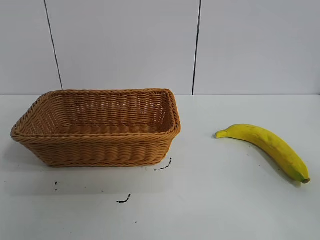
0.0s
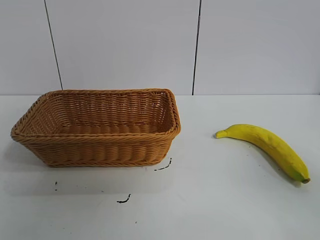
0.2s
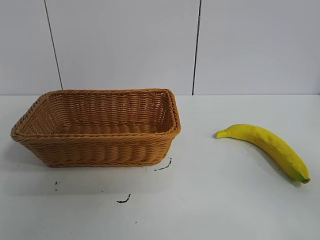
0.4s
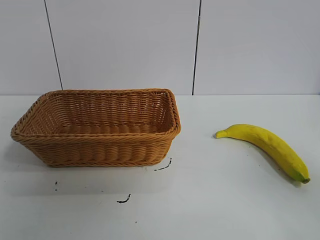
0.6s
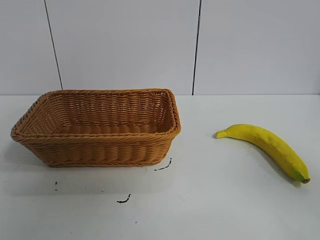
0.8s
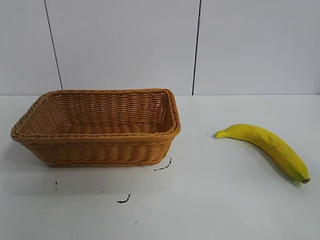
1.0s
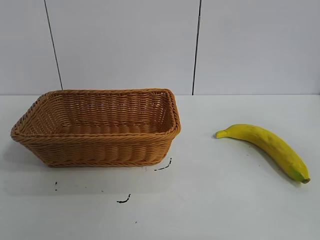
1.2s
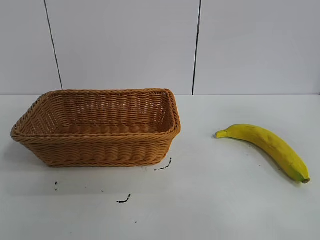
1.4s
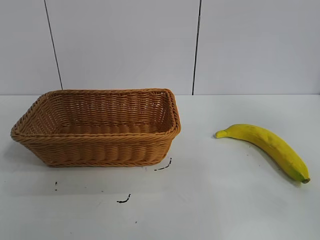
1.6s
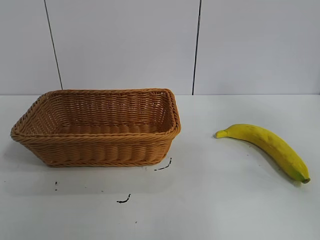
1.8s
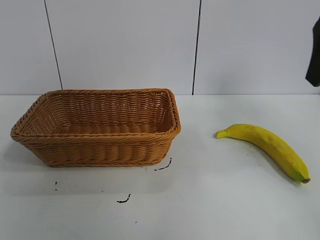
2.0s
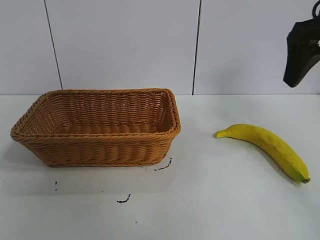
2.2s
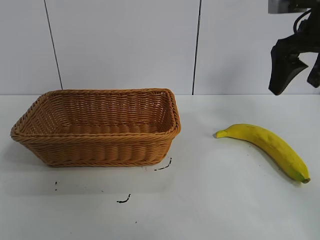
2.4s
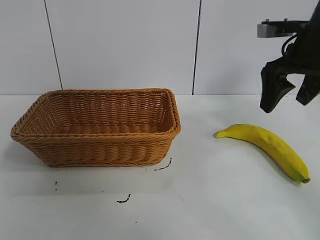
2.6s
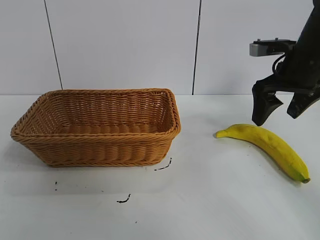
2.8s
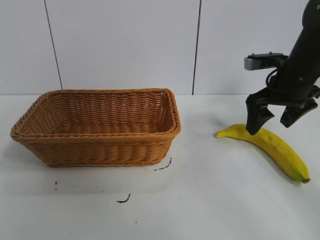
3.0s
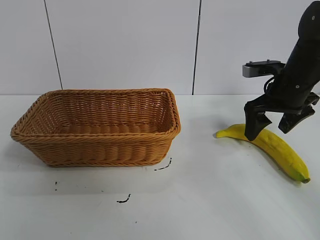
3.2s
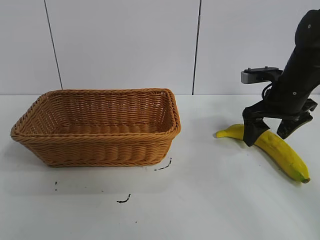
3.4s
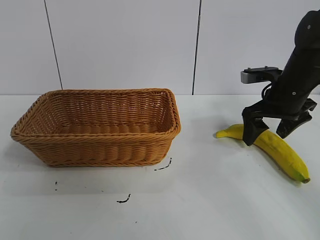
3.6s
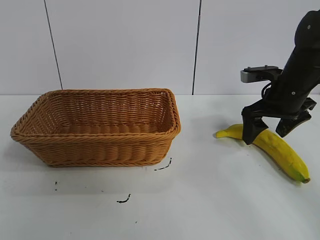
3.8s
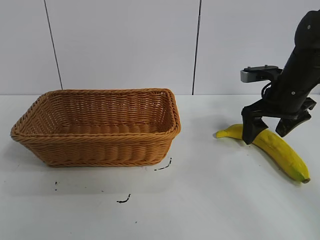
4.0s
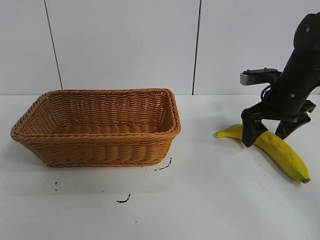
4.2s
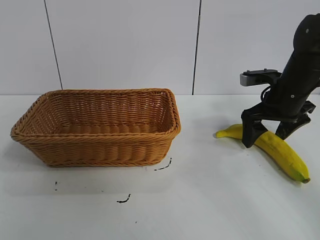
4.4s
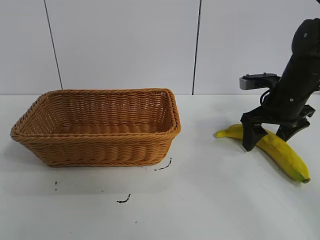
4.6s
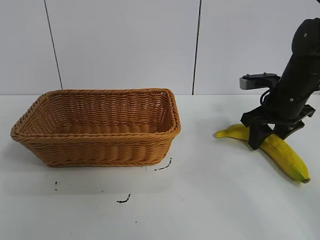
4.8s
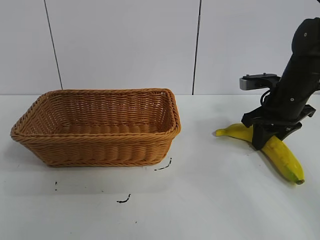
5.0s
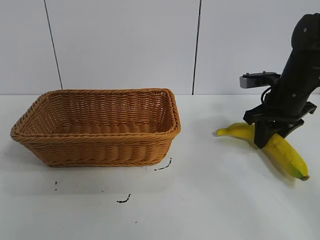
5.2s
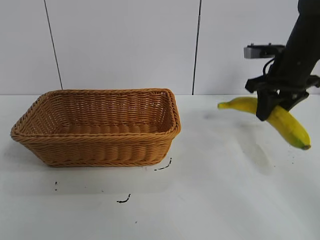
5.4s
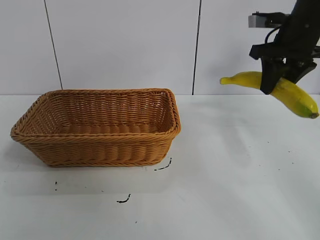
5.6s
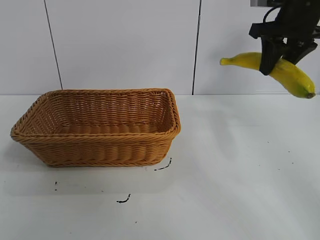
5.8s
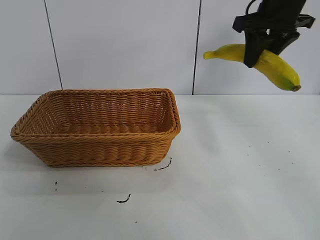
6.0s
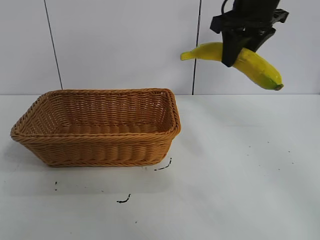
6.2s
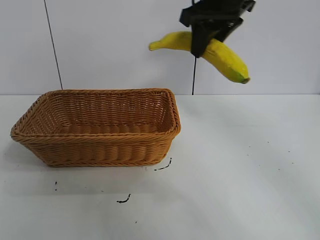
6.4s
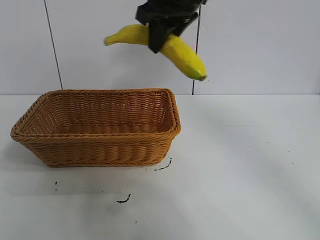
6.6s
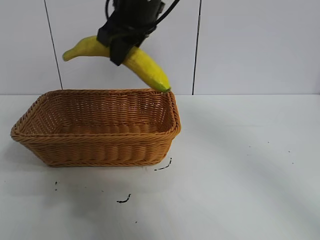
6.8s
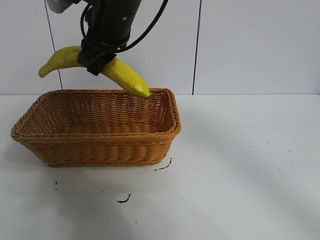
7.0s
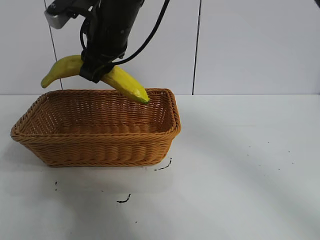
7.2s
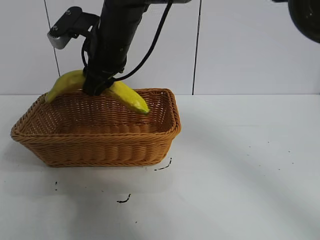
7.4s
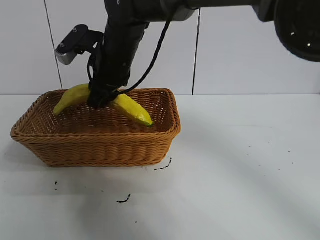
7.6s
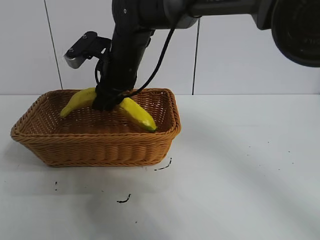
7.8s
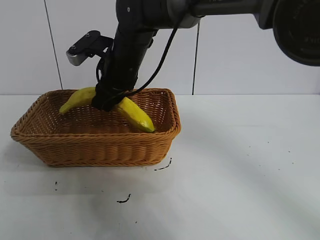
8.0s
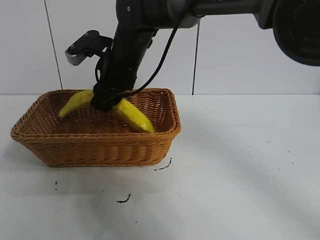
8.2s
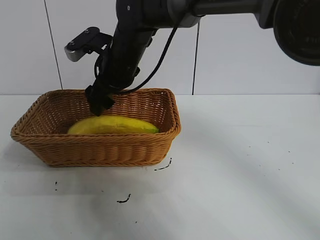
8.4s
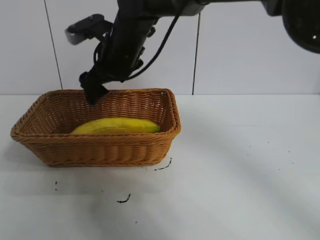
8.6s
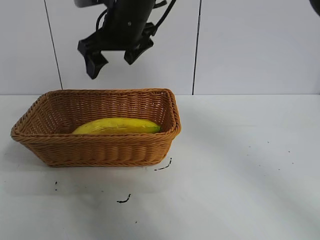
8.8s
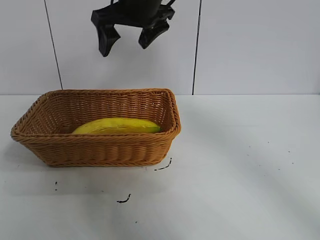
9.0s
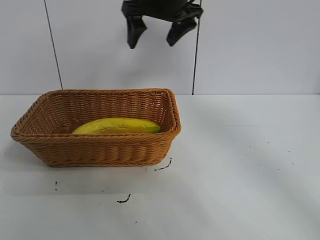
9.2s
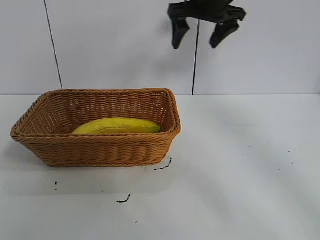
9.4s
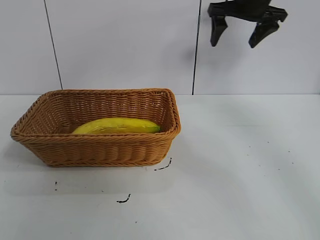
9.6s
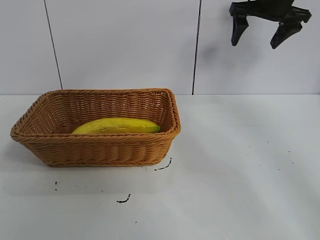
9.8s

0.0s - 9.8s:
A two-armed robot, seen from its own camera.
Task of the whole recording: pick up the banana and put it into the basket.
Step, 1.0s - 5.0s: Grasp the banana with right gripper.
Step, 5.2s - 8.6s: Place the banana in the basket with right gripper.

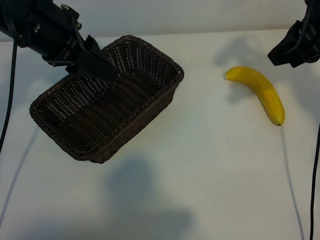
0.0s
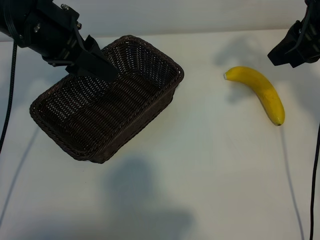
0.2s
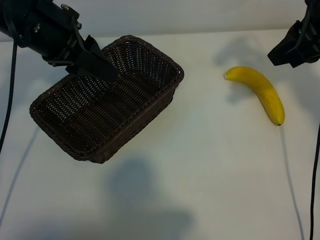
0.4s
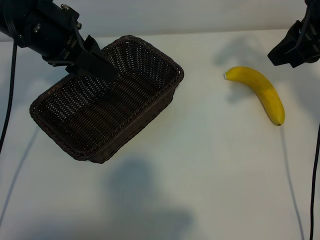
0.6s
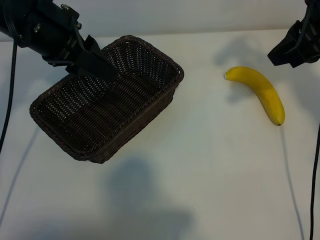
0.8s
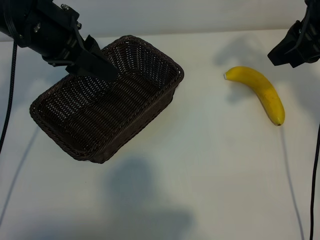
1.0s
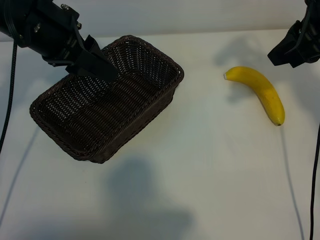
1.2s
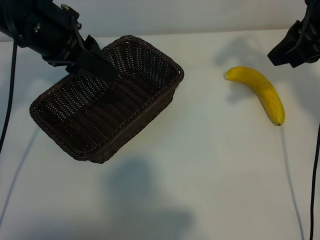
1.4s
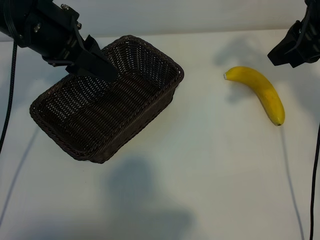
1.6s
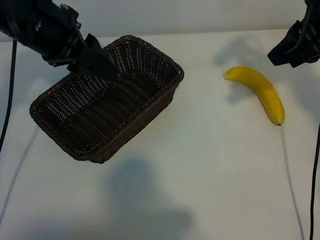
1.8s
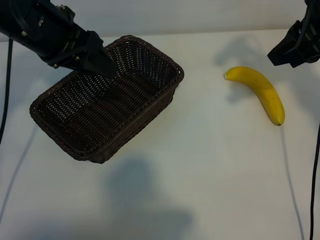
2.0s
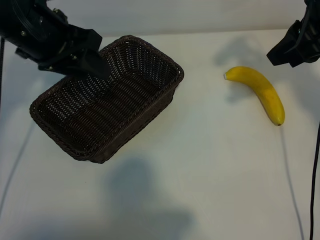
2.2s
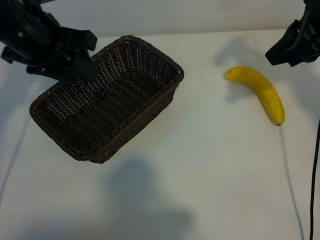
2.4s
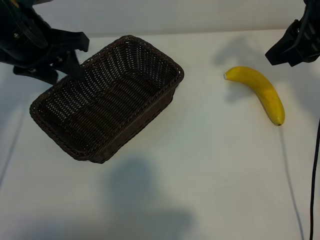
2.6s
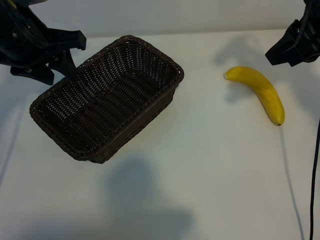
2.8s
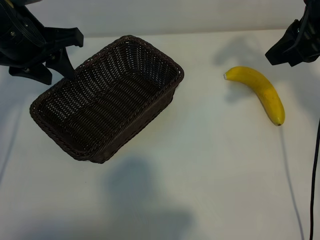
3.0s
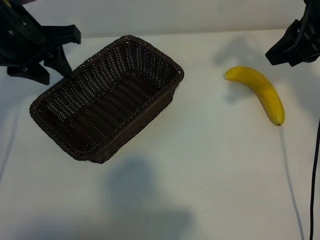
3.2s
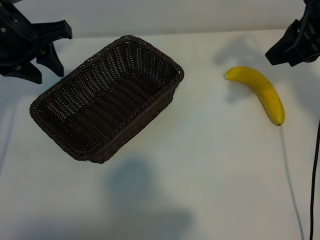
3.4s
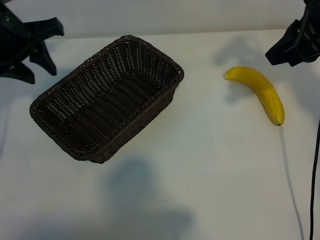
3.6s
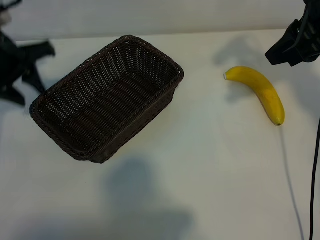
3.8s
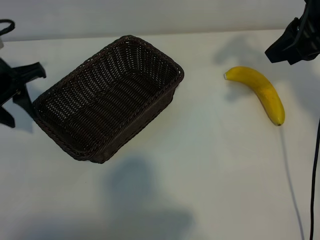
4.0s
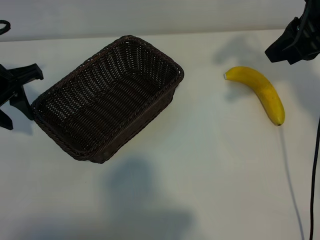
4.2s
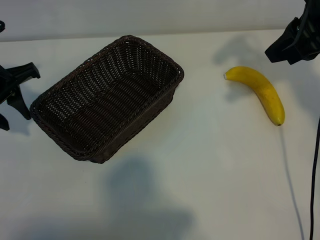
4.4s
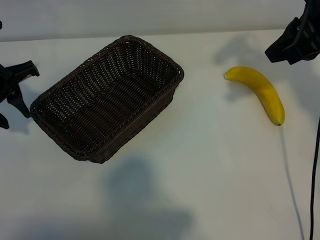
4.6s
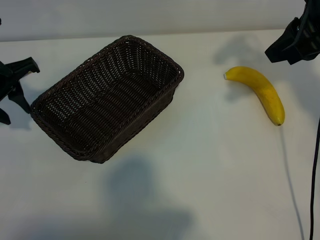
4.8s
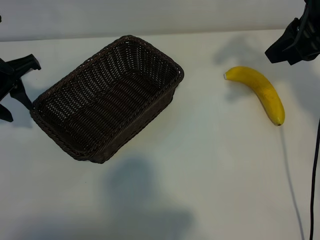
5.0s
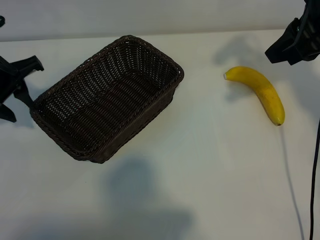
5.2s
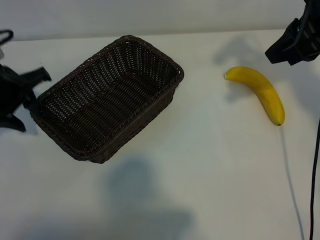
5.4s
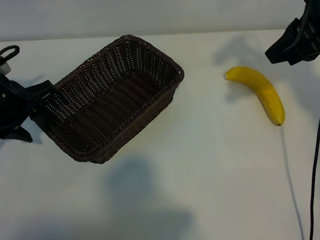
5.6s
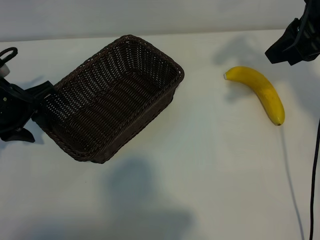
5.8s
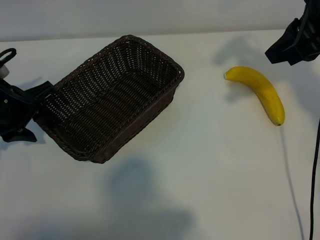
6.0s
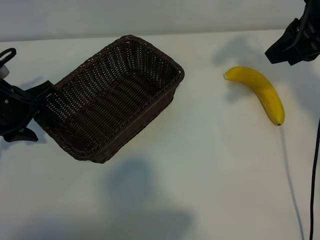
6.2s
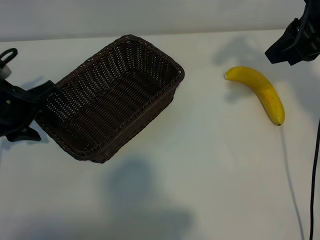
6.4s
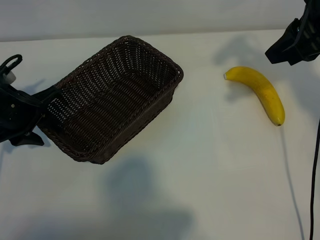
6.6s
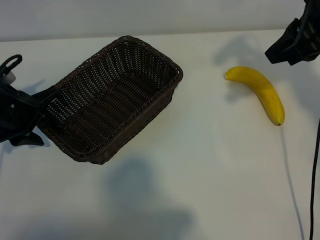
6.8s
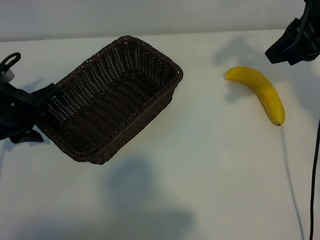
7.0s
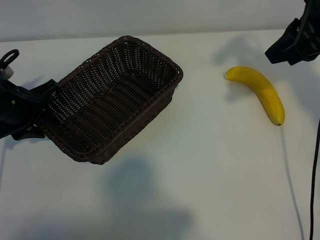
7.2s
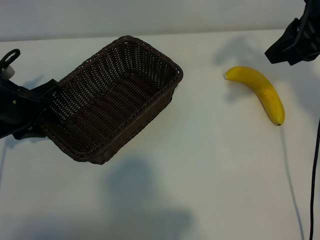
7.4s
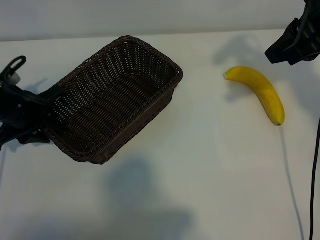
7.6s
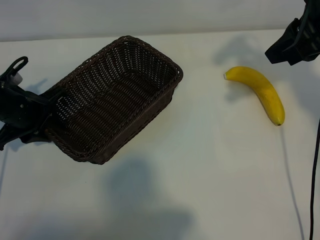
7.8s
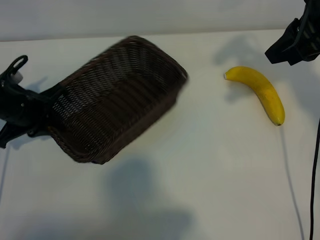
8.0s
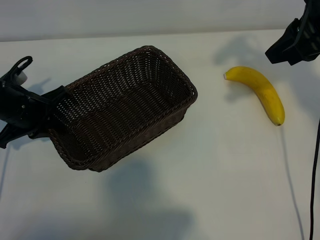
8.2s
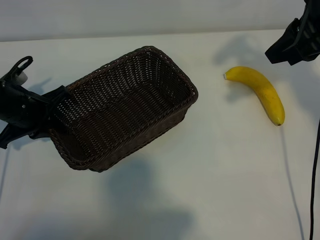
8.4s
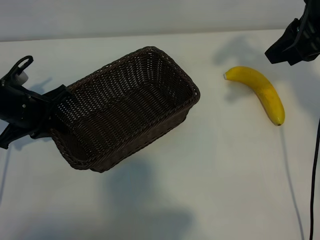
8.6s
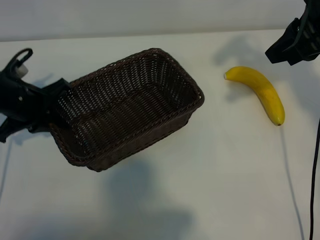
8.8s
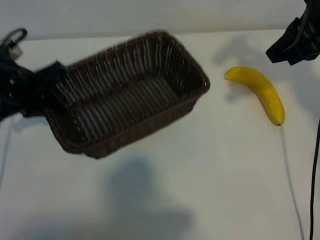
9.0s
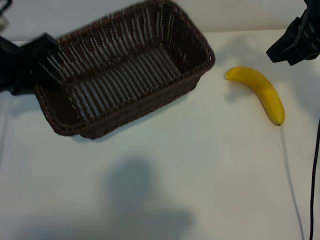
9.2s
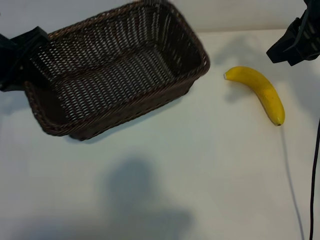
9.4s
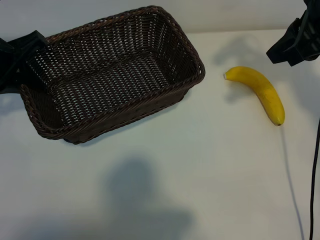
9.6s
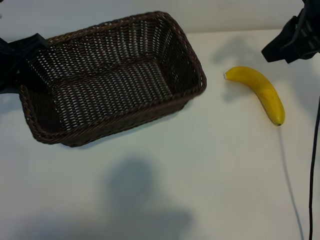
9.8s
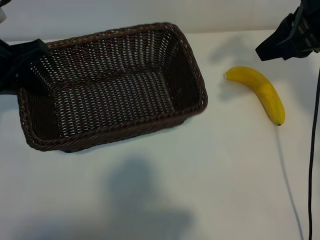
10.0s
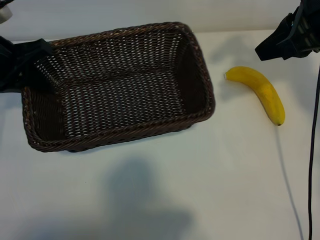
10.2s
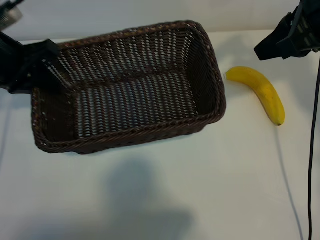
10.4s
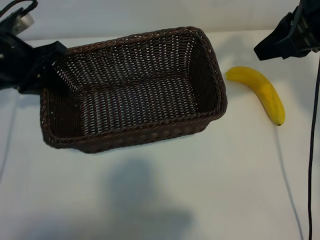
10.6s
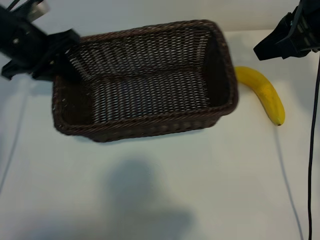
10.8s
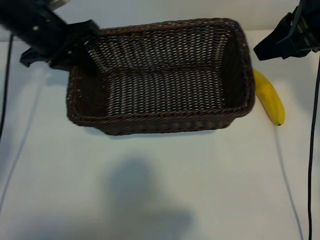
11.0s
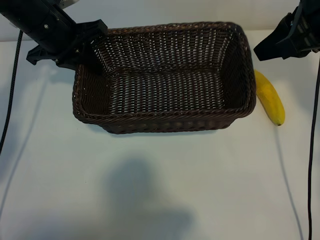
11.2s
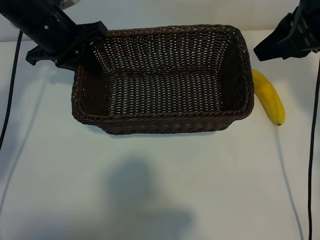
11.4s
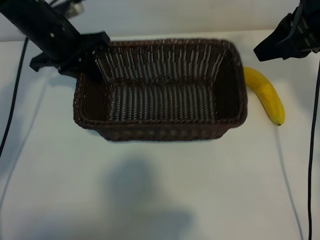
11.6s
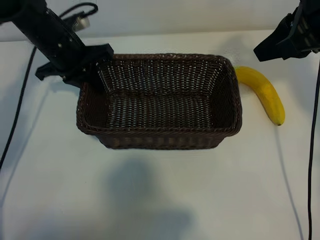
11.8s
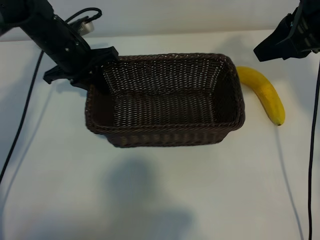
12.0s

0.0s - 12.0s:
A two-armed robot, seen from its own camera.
Task of the whole recording: pick up the banana and put it into the basket.
Step, 1.8s - 8.6s: Grasp the basket with the left gripper.

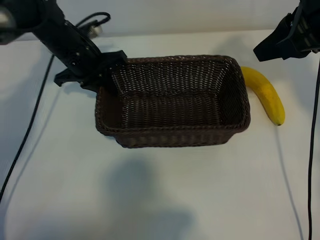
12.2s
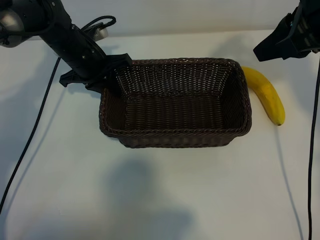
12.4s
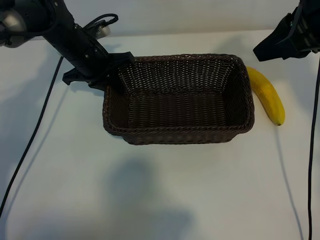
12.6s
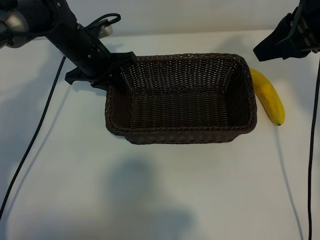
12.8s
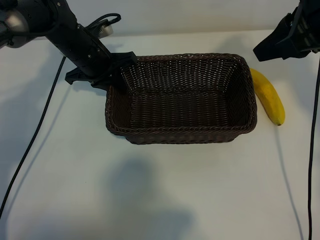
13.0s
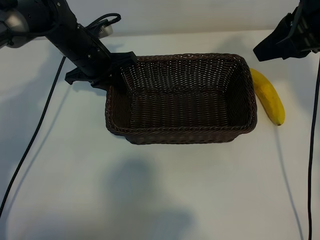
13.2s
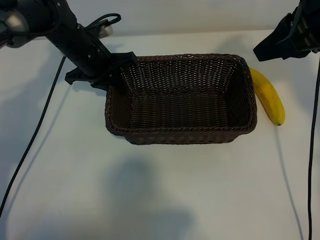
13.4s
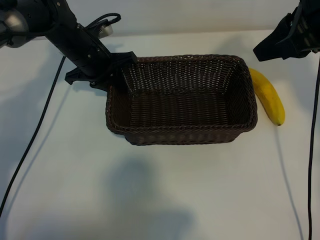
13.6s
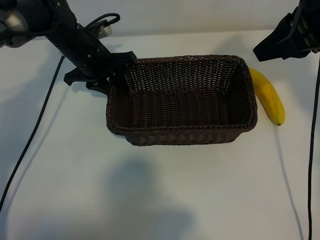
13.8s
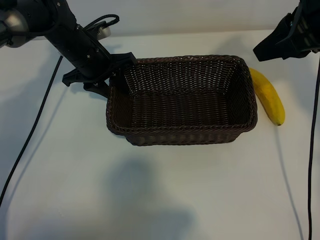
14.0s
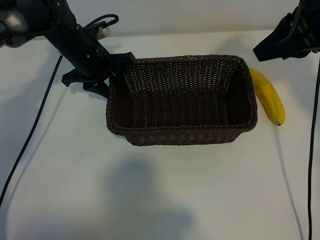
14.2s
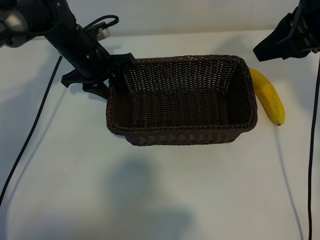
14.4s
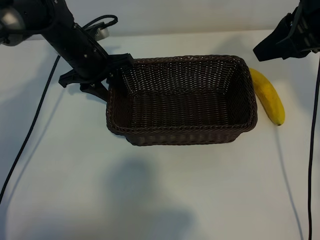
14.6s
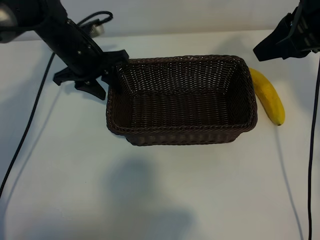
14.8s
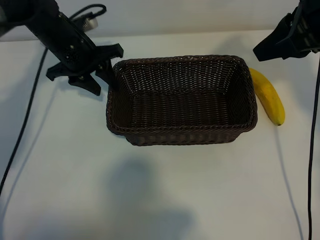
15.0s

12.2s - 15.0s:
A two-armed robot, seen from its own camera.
Task of the whole recording: pick up the banana and put it into the basket.
Step, 12.2s - 14.8s: Place the basket in the center of the table with the left gripper.
